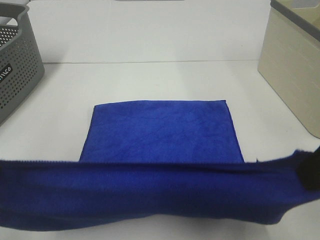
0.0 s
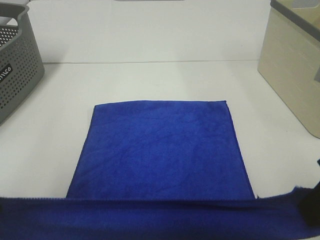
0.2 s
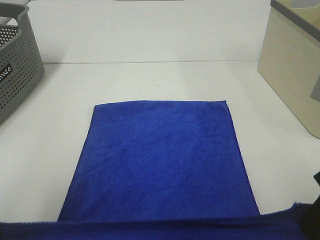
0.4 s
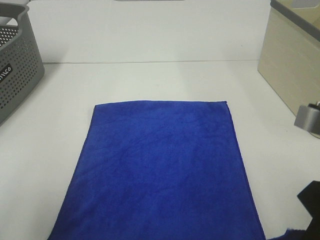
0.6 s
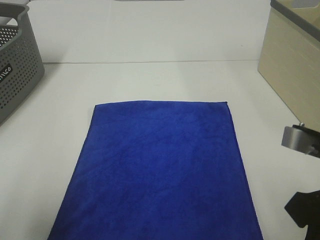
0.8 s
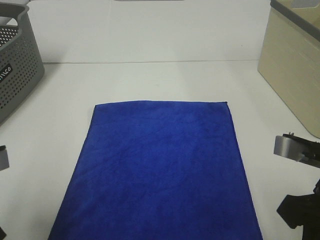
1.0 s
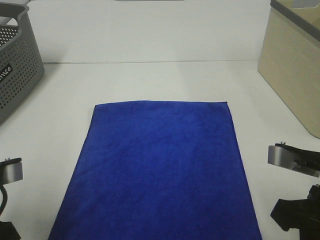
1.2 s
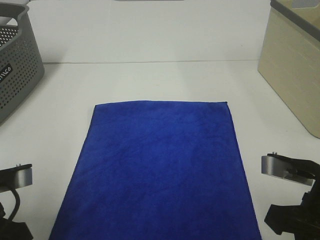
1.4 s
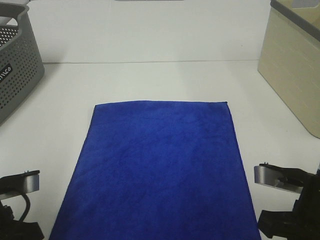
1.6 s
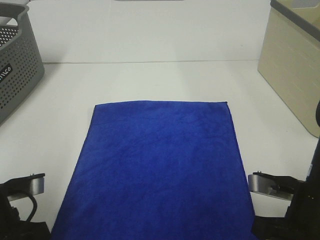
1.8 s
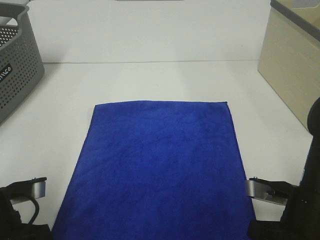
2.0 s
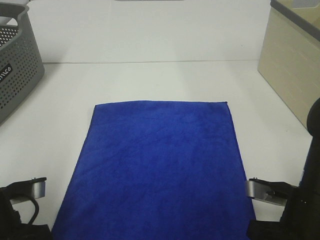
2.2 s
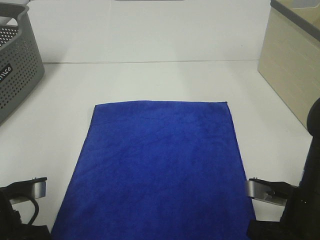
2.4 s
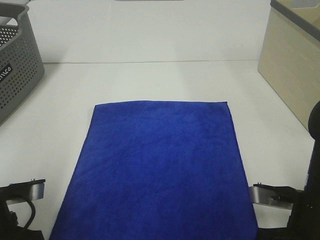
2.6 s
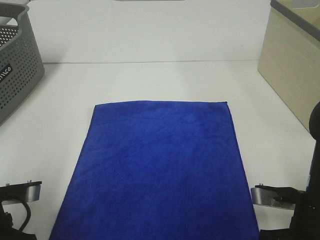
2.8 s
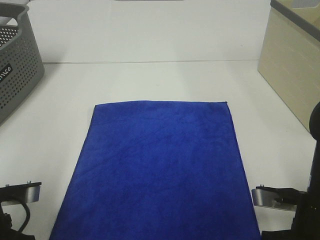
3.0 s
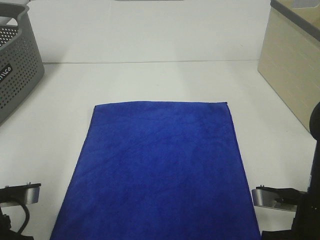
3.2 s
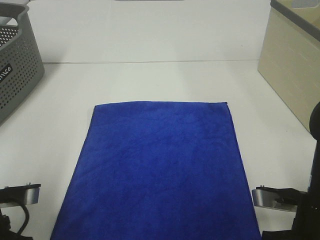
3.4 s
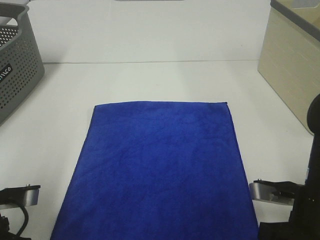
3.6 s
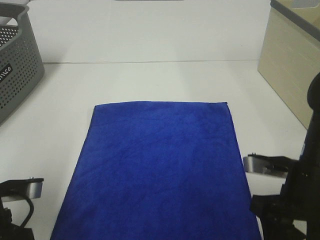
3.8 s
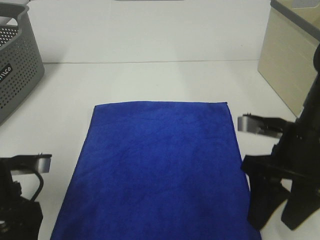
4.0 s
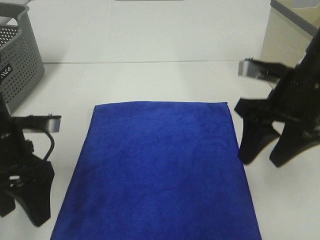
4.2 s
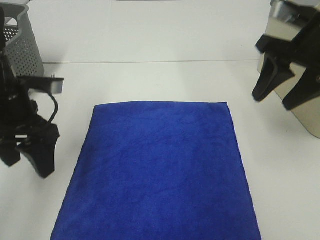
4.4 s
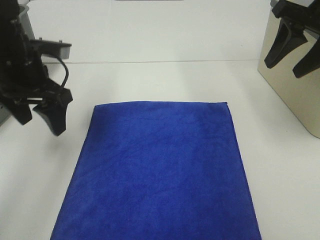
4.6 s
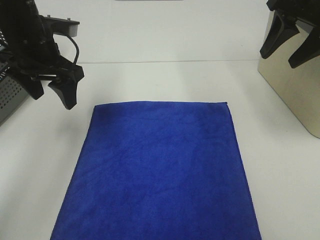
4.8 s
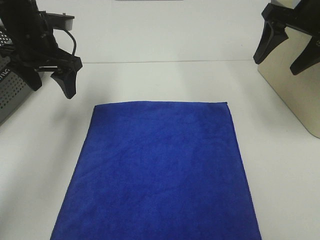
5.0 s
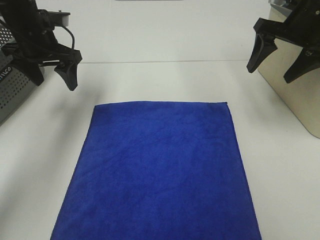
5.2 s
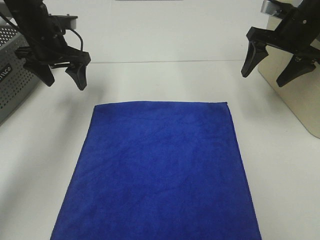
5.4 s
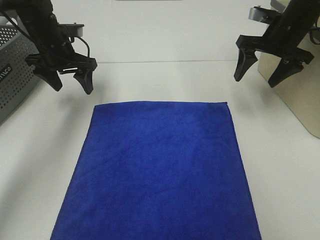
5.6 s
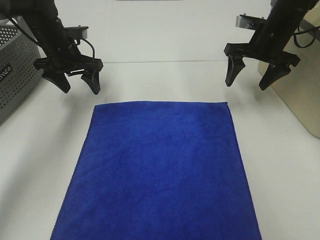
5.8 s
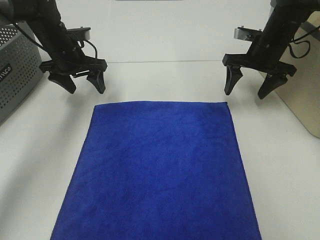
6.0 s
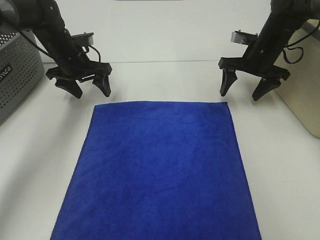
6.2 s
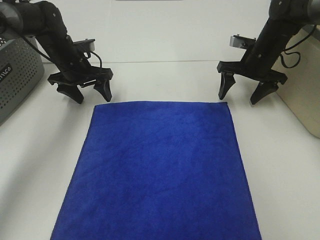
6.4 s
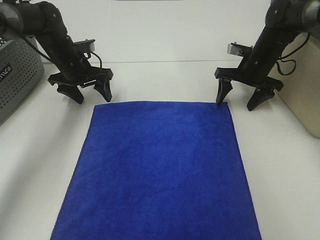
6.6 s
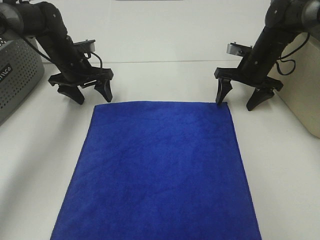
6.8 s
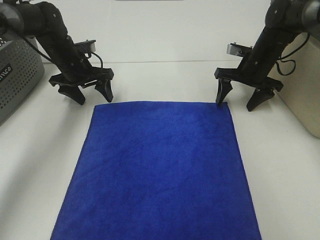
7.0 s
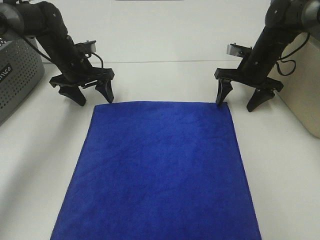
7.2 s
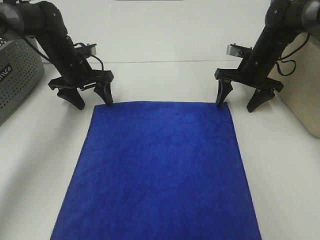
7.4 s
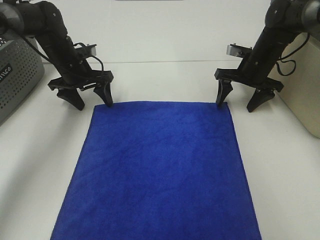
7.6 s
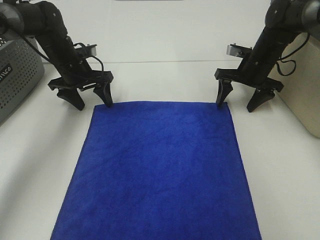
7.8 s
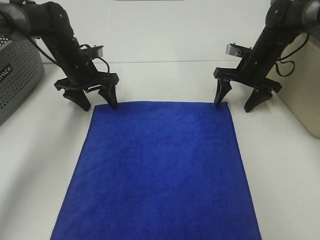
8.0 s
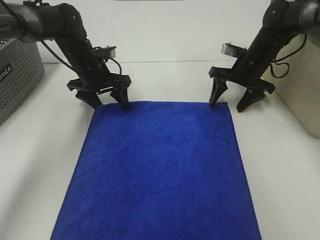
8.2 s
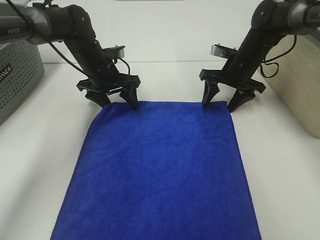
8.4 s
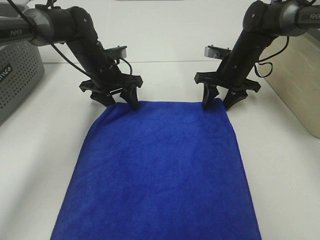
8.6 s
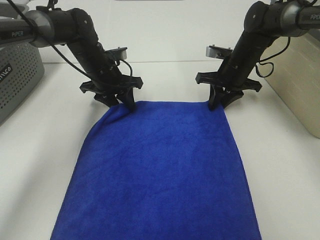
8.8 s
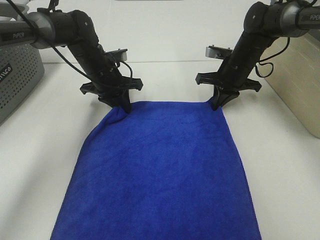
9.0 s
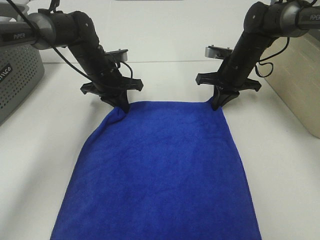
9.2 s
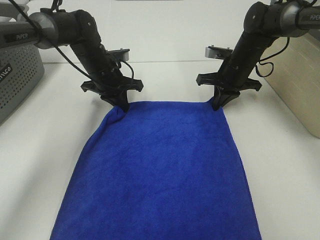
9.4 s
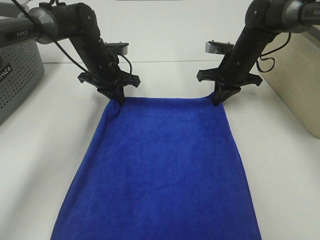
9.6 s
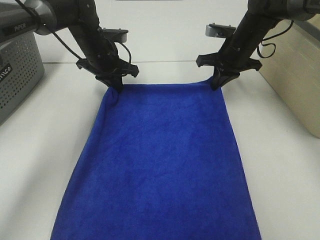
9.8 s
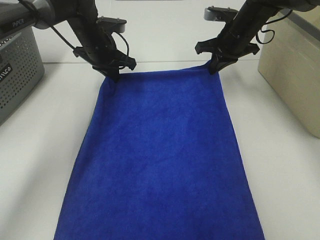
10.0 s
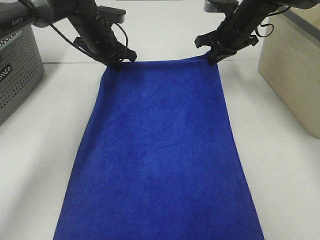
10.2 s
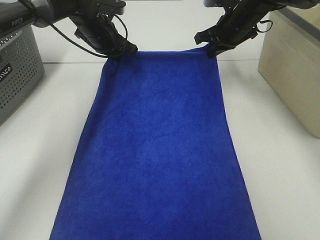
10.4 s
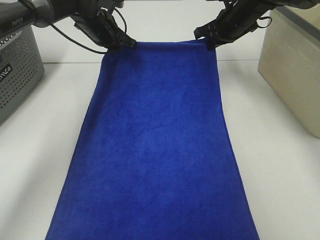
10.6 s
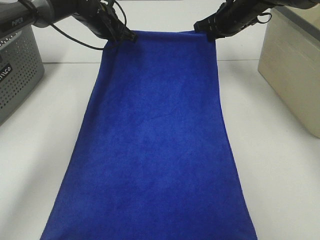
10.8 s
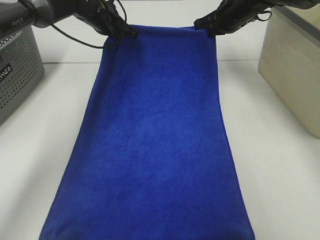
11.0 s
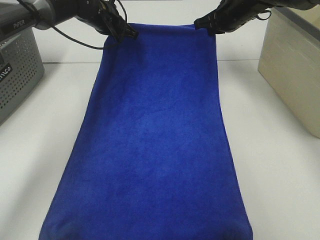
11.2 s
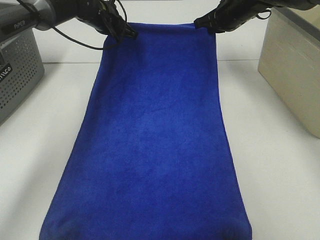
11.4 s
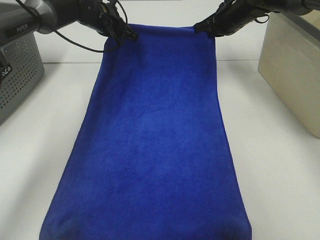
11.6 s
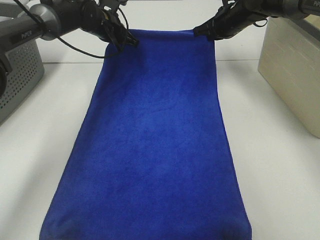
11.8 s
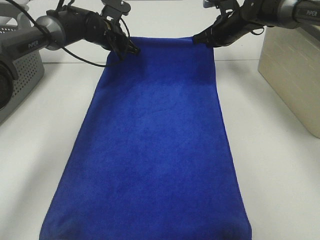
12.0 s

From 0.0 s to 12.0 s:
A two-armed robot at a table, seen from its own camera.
Task of the whole recording: Remove the towel and place it.
Step, from 0.0 s to 6.0 s: Left hand:adjust the blue towel.
Step, from 0.0 s to 6.0 s: Right hand:adjust the blue towel.
From 0.0 s to 1.6 s: Both grippers move downward, approximately 15 cm.
From 1.6 s to 3.0 s: The right gripper opens up. Meanwhile the left gripper opens.
From 3.0 s to 4.4 s: The left gripper heads forward and upward, covering roughly 15 cm. The right gripper travels upward and forward by approximately 25 cm.
From 4.4 s to 6.0 s: The left gripper shifts roughly 20 cm forward; the right gripper goes roughly 20 cm forward and downward.
From 6.0 s to 7.6 s: The grippers stay close to where they were, moving slightly.
From 7.6 s to 9.0 s: The left gripper goes about 5 cm to the right, and closes, while the right gripper closes up.
From 9.0 s to 10.4 s: The left gripper shifts roughly 10 cm upward and forward; the right gripper moves upward, approximately 10 cm.

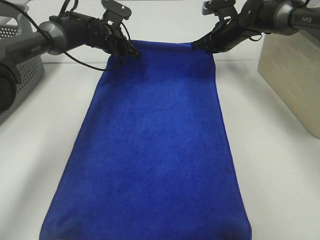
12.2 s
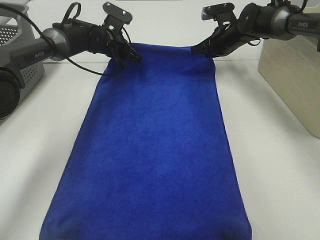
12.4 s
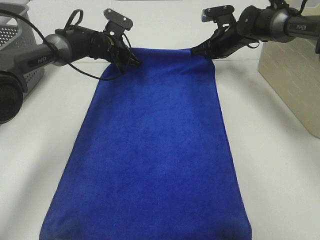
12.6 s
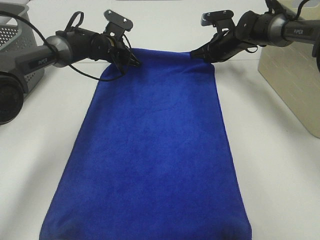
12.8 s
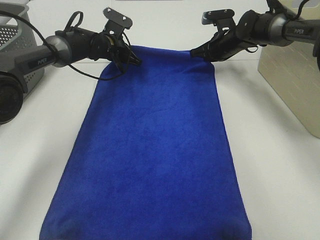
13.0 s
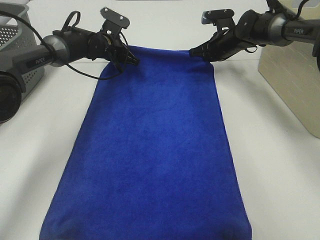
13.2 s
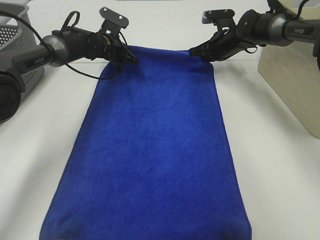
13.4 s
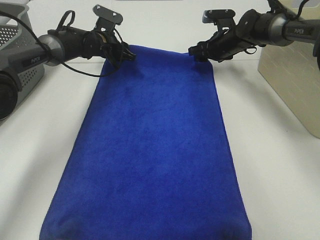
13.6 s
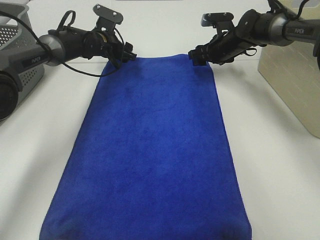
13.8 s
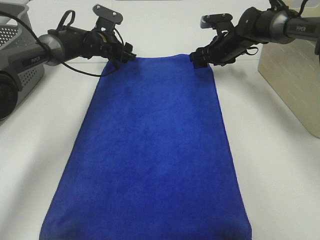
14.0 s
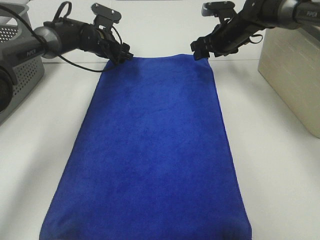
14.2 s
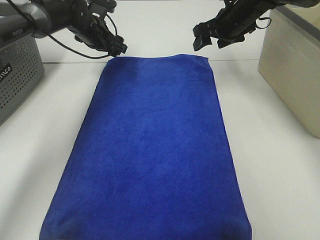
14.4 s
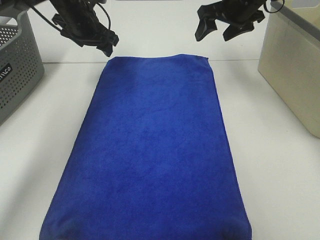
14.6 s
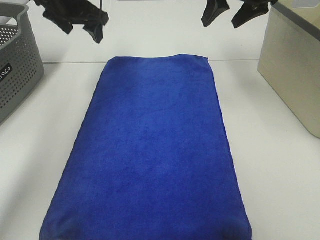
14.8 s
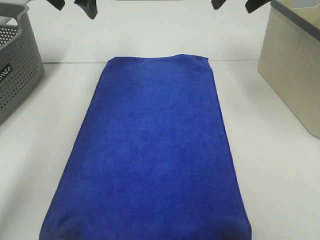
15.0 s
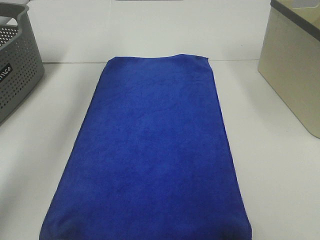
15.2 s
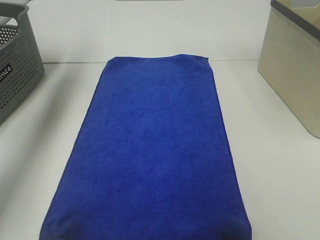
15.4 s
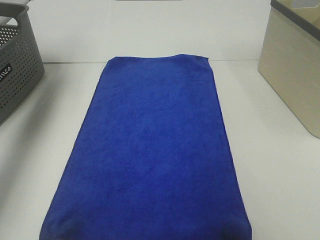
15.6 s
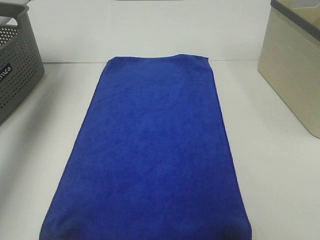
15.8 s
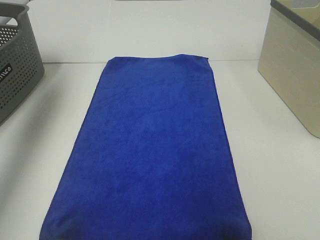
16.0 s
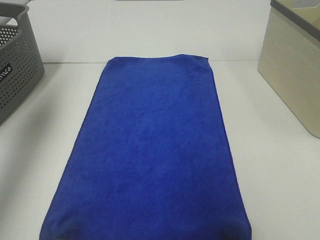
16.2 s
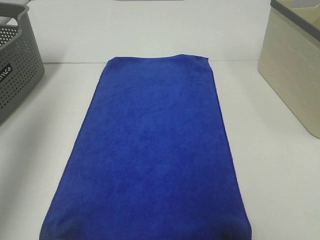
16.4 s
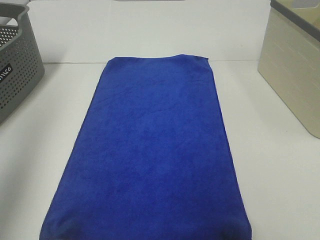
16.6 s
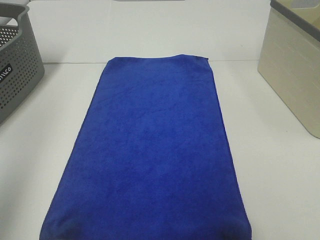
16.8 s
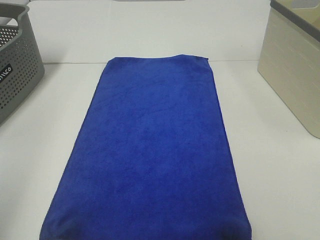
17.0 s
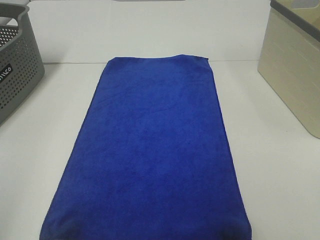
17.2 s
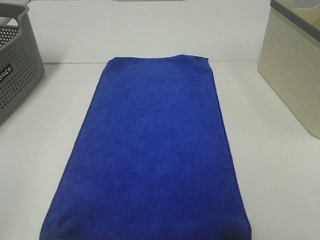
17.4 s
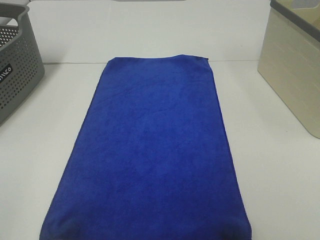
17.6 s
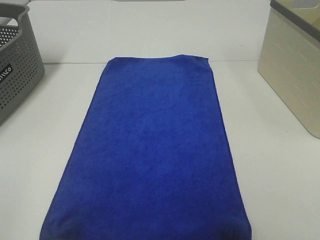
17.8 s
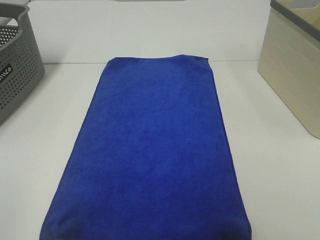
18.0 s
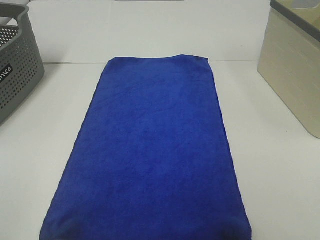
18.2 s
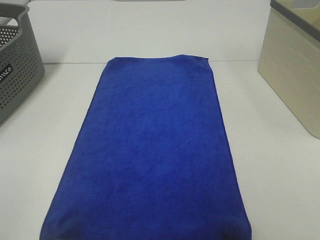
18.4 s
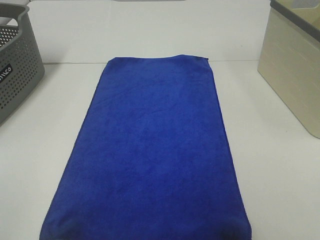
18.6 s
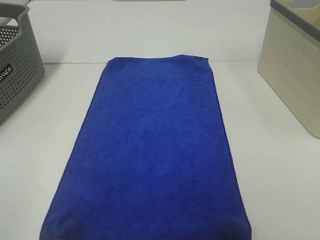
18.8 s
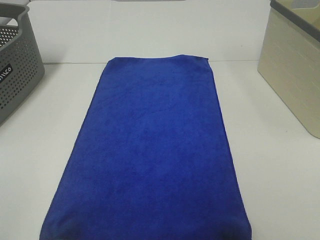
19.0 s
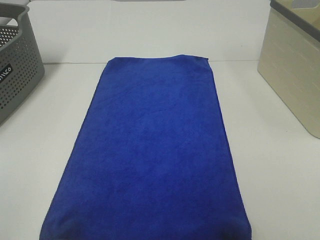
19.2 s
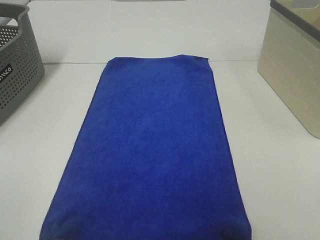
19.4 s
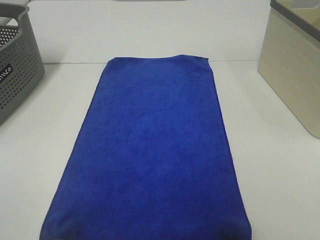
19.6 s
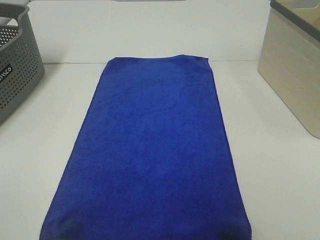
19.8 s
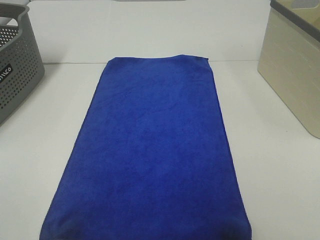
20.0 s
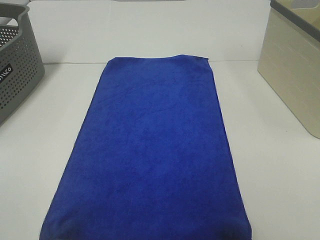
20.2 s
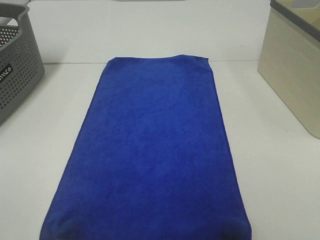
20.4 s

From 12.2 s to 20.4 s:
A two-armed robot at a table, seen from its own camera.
Task of the whole recording: Remove the towel and place it.
From 12.2 s to 13.8 s: The right gripper opens. The left gripper opens.
From 13.8 s to 15.4 s: The left gripper shifts approximately 30 cm upward, to the left and backward, while the right gripper travels upward and backward by roughly 35 cm.
From 15.4 s to 17.2 s: The left gripper is displaced backward by some 40 cm.

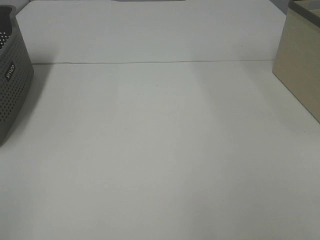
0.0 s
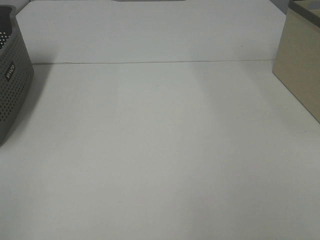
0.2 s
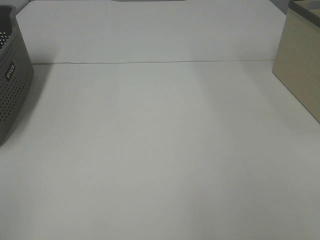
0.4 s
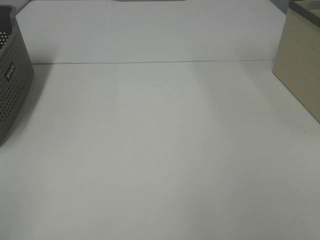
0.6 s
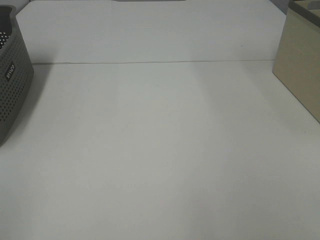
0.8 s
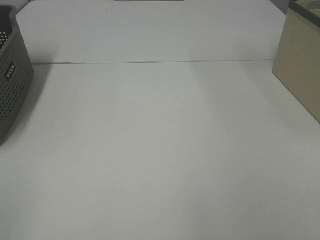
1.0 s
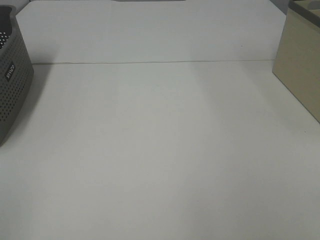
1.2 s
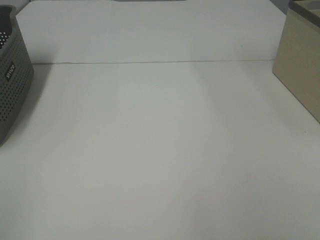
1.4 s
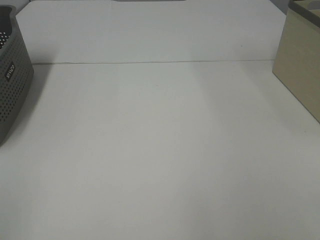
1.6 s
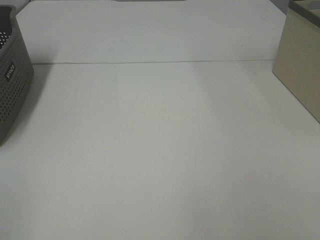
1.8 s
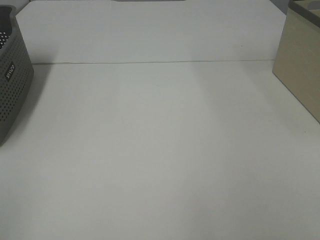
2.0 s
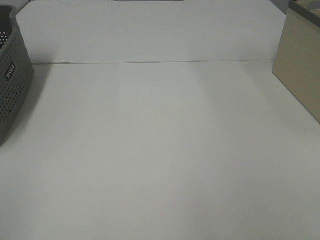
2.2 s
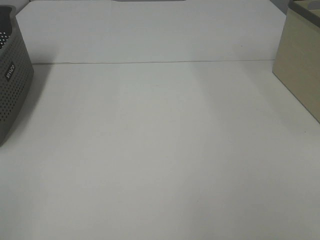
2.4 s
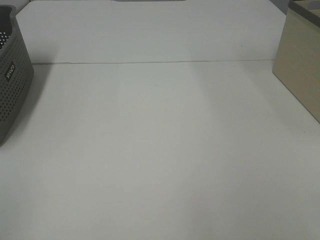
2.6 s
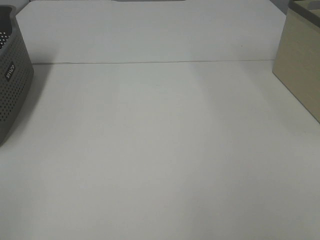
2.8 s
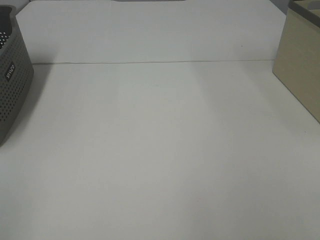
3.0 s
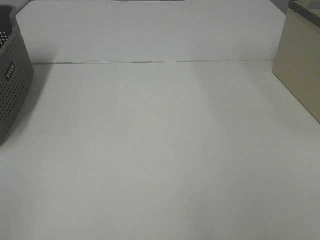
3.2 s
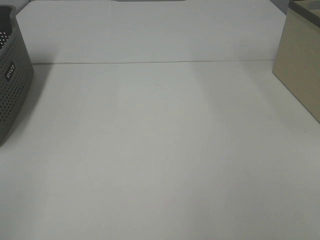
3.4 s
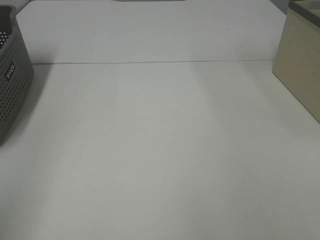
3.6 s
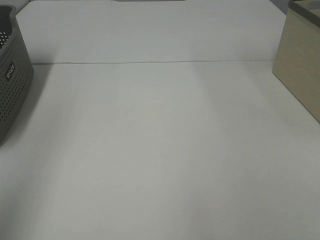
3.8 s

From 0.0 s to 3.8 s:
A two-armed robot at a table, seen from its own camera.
Task of the whole recording: Remove the towel and place it.
From 0.0 s to 2.6 s: Neither gripper changes place.
From 2.6 s to 3.8 s: The left gripper travels upward and forward by approximately 15 cm.
